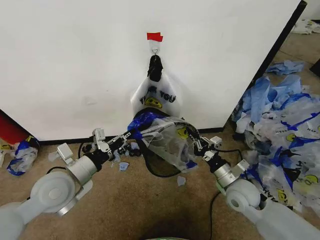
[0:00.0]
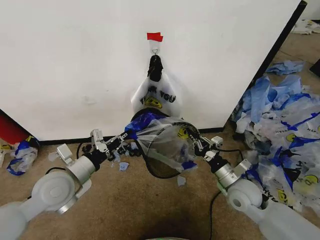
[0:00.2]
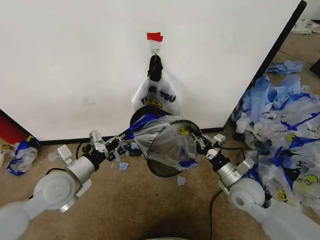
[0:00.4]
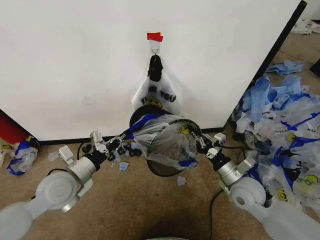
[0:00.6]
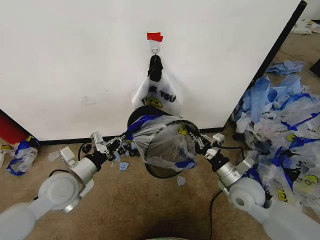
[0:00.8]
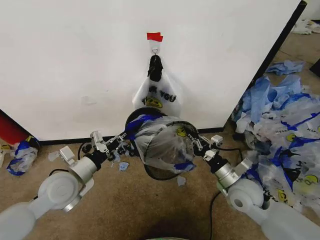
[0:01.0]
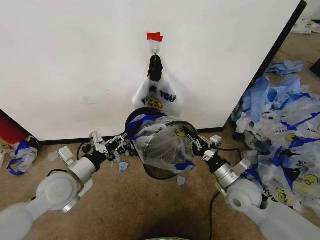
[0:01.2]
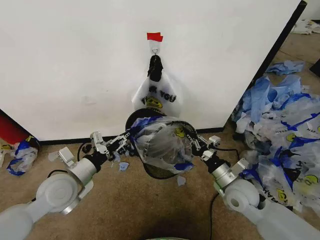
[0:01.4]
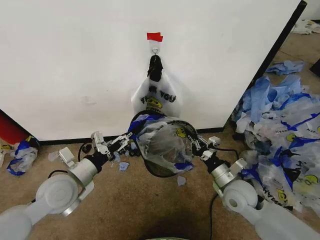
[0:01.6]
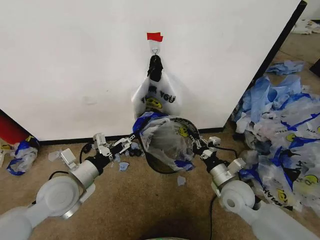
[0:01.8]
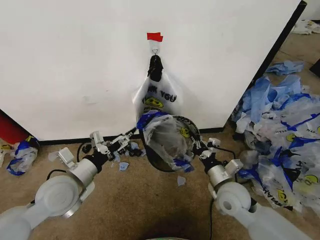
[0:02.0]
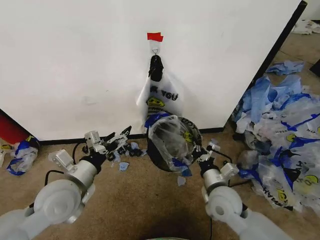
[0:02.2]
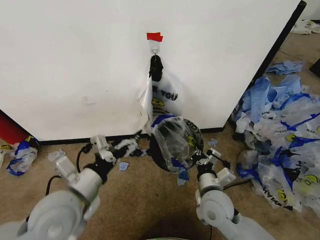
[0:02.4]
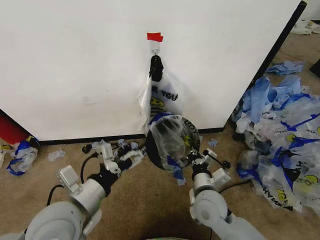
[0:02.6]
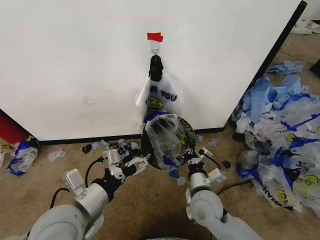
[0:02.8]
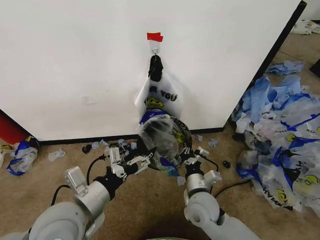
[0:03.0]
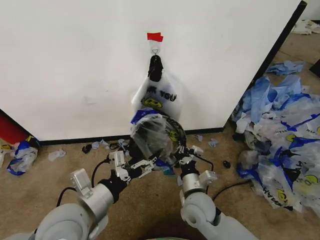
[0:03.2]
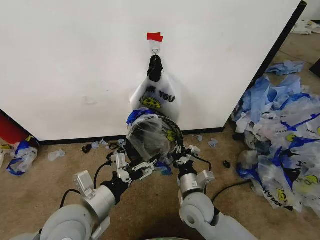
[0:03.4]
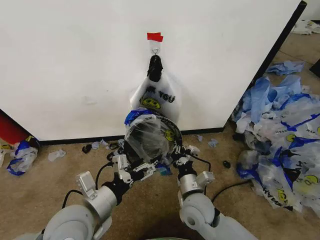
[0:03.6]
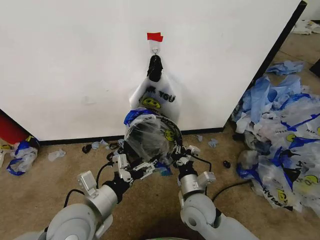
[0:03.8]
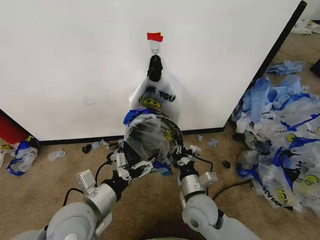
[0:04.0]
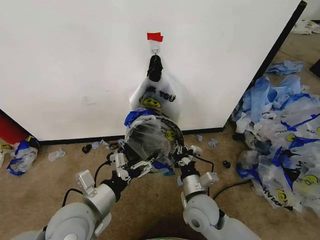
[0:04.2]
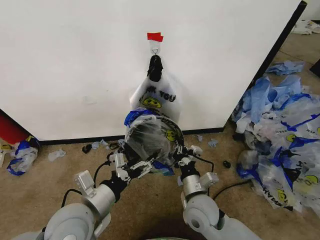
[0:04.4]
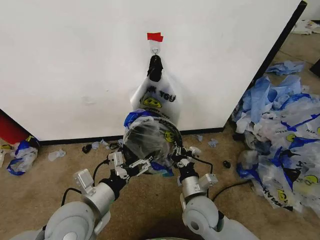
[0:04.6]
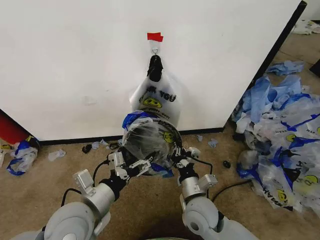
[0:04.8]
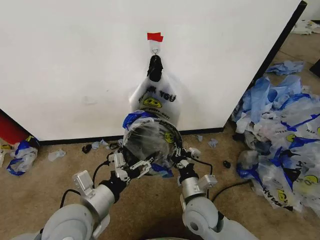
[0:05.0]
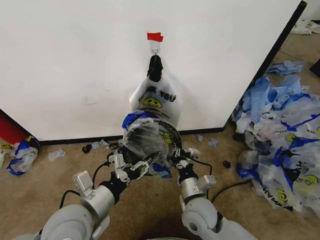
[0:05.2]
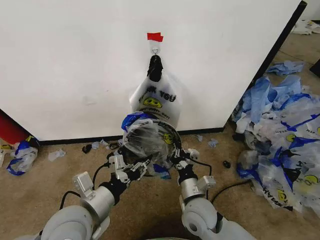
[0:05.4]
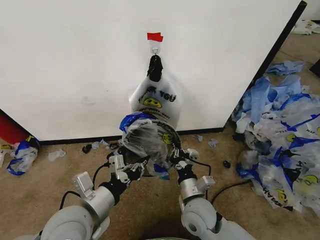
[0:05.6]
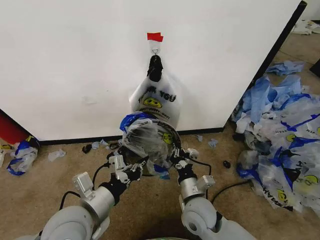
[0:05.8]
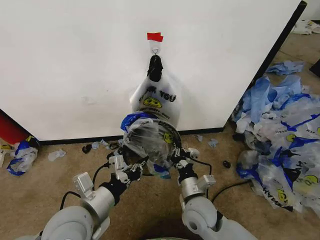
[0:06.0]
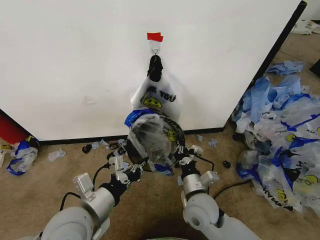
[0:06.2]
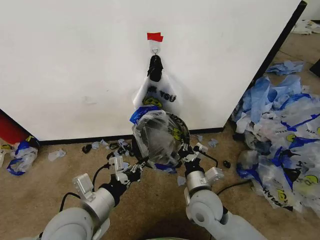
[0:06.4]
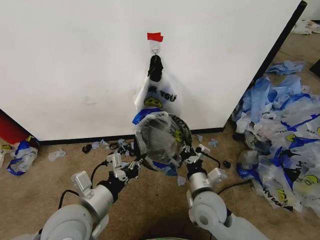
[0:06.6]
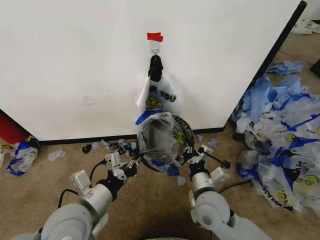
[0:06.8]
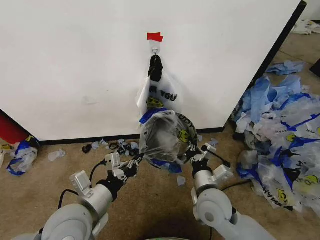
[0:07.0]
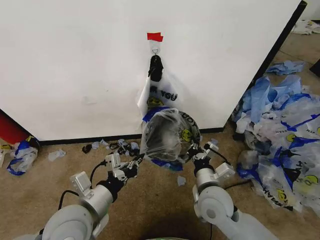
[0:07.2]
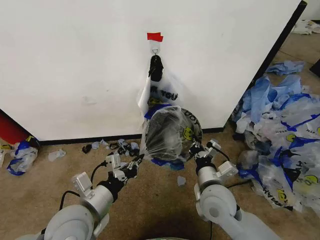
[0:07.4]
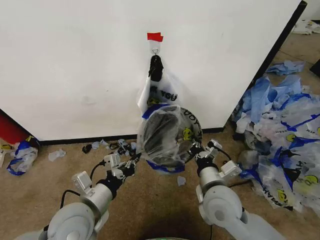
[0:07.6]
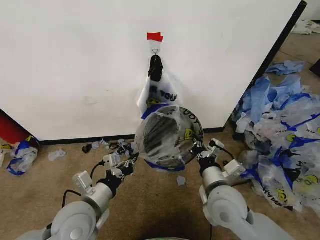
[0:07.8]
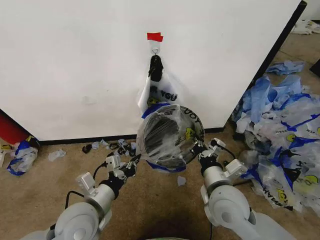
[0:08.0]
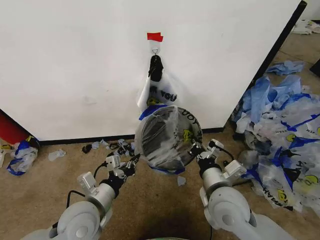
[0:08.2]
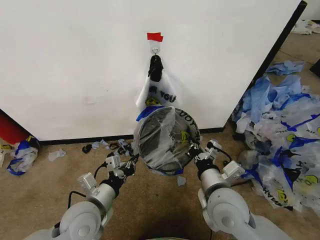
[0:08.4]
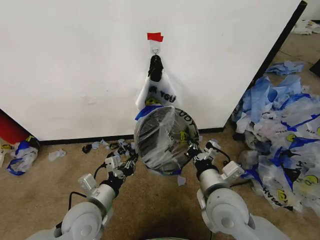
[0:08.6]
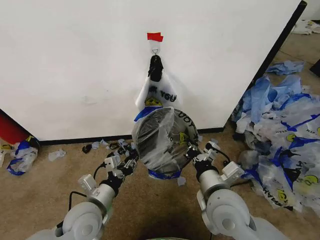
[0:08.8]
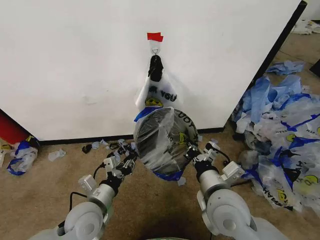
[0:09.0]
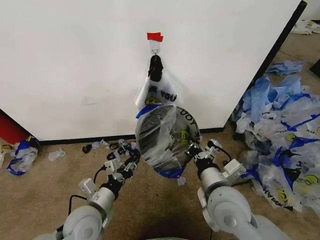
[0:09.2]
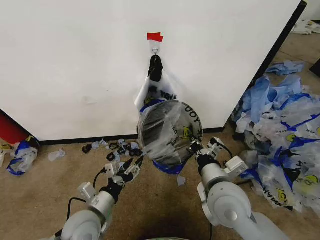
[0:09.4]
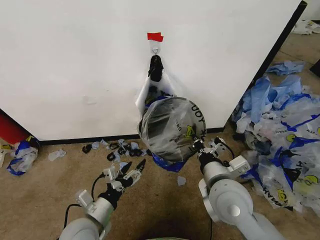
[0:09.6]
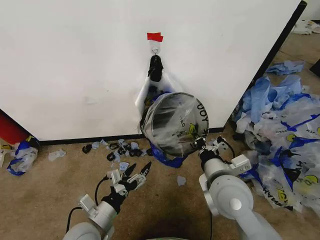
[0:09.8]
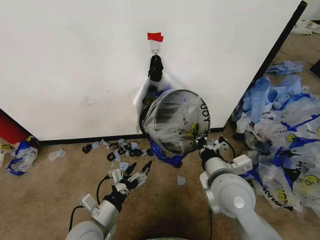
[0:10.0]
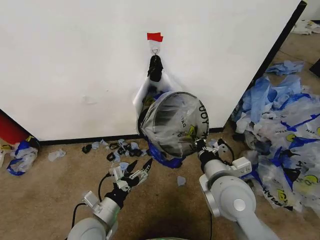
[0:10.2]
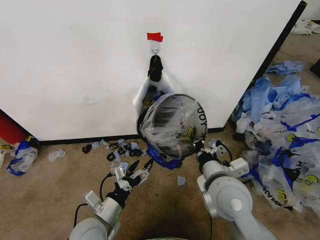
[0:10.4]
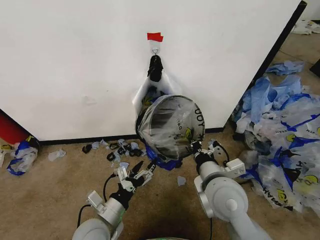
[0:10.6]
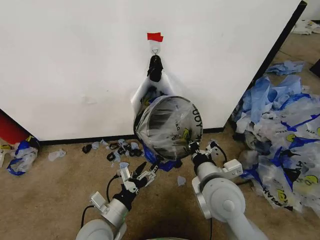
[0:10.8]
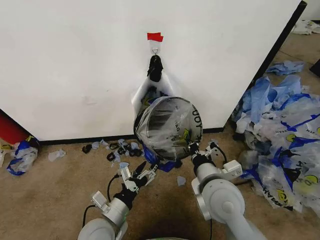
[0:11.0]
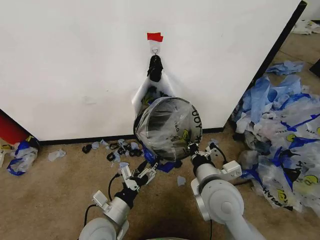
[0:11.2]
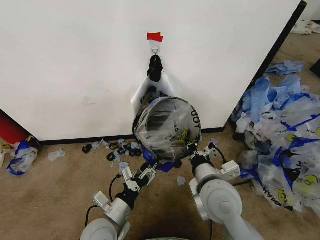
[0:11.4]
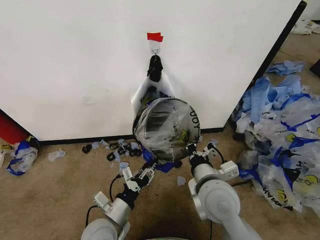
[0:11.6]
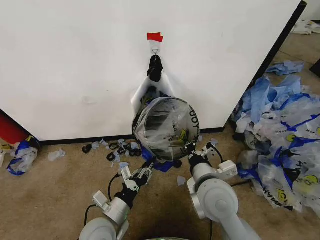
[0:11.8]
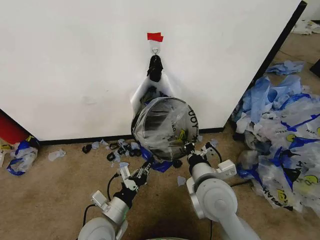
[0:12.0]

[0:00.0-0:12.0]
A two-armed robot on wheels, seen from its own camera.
Task of the whole recording: Pick up the garbage bag from the wall and place it over the trash bin.
0:00.0 to 0:01.6: The left gripper opens up.
0:01.6 to 0:03.0: The left gripper shifts approximately 10 cm backward and to the right; the right gripper travels to the left by about 10 cm.
0:03.0 to 0:04.4: The grippers make only small movements.
0:04.4 to 0:06.0: The left gripper closes its fingers.
0:06.0 to 0:07.6: The right gripper heads upward, covering some 10 cm.
0:07.6 to 0:09.0: The left gripper travels downward by some 5 cm.
0:09.0 to 0:10.4: The left gripper opens its fingers.
0:10.4 to 0:12.0: The left gripper closes its fingers.

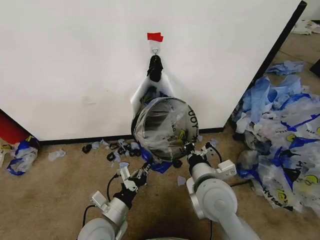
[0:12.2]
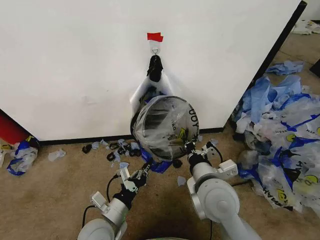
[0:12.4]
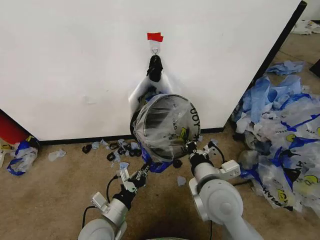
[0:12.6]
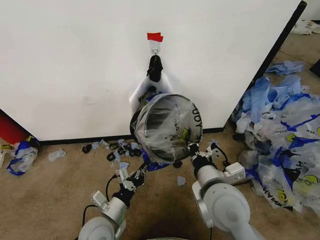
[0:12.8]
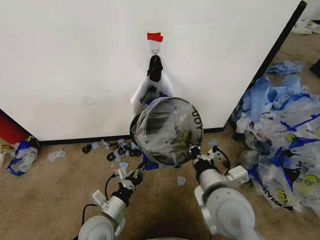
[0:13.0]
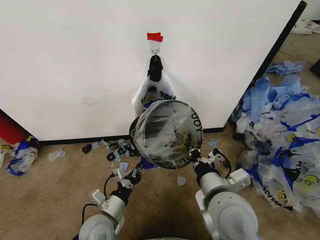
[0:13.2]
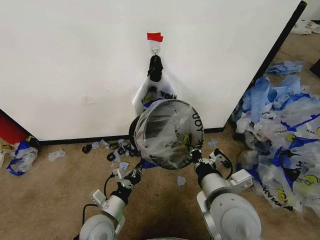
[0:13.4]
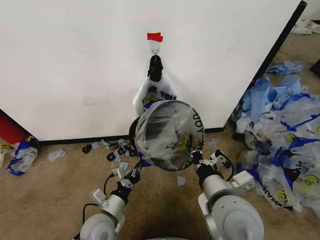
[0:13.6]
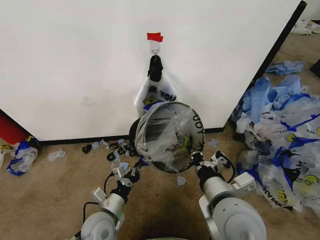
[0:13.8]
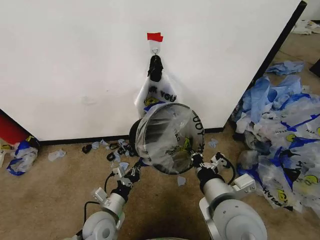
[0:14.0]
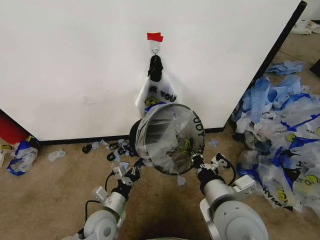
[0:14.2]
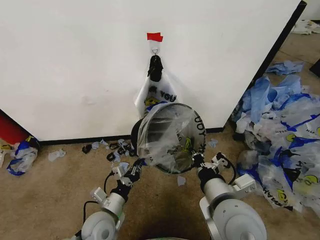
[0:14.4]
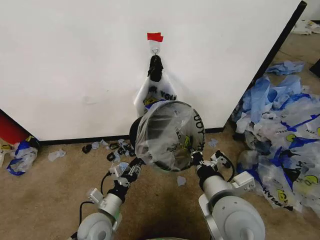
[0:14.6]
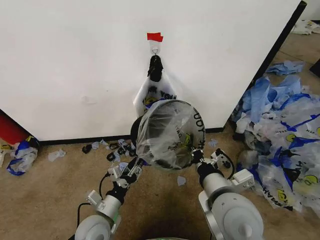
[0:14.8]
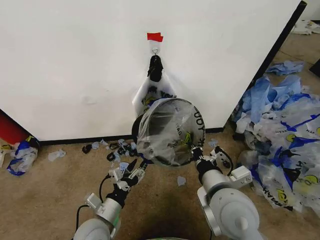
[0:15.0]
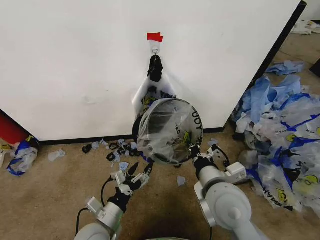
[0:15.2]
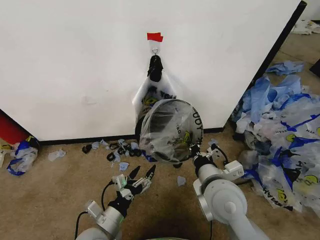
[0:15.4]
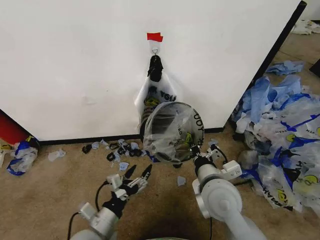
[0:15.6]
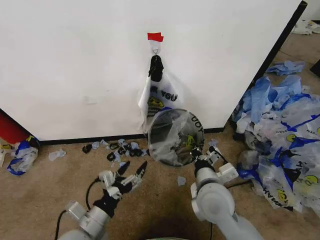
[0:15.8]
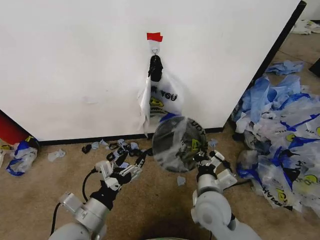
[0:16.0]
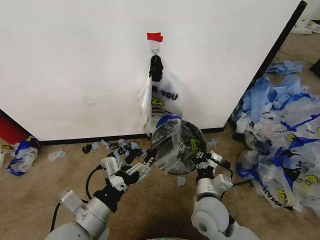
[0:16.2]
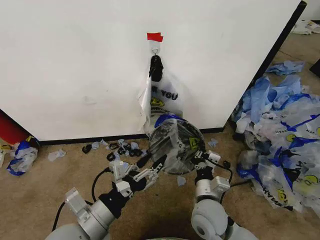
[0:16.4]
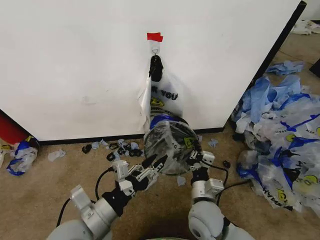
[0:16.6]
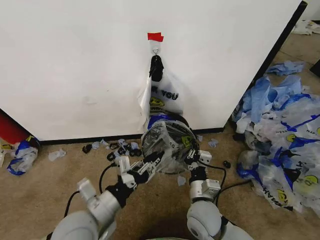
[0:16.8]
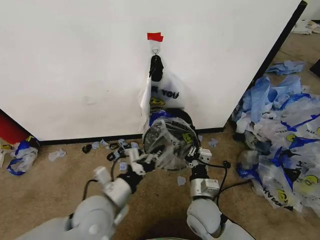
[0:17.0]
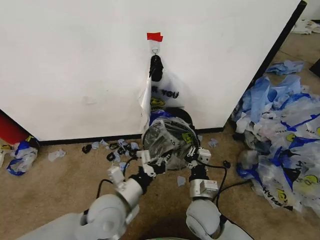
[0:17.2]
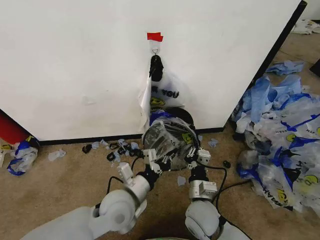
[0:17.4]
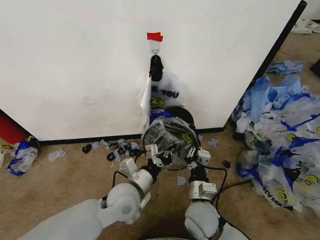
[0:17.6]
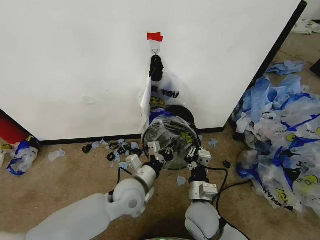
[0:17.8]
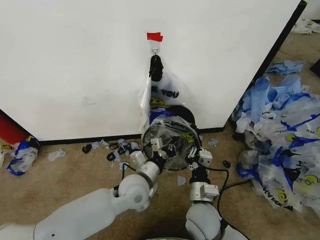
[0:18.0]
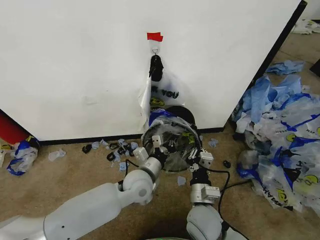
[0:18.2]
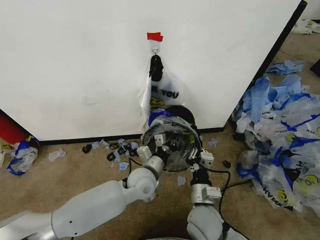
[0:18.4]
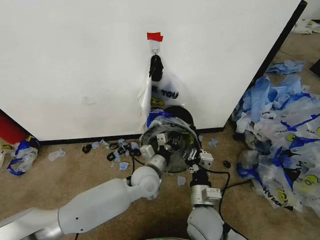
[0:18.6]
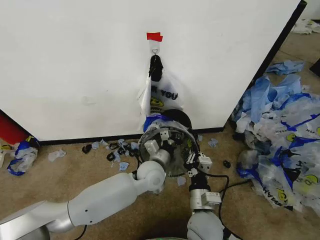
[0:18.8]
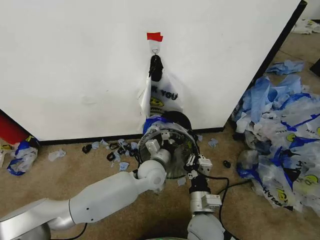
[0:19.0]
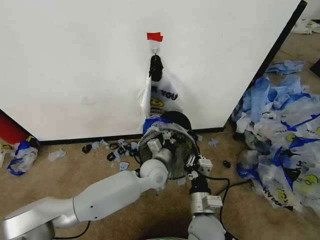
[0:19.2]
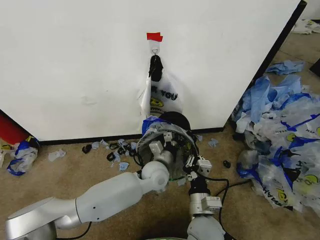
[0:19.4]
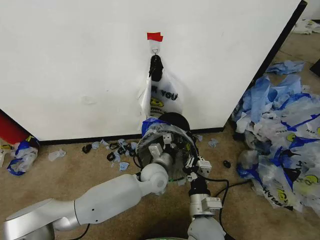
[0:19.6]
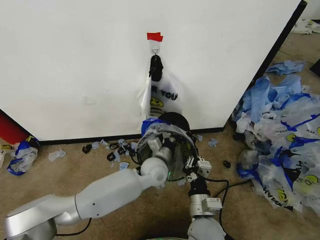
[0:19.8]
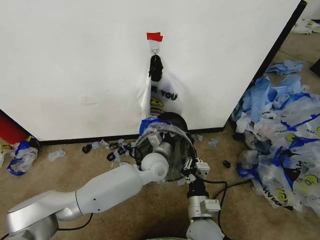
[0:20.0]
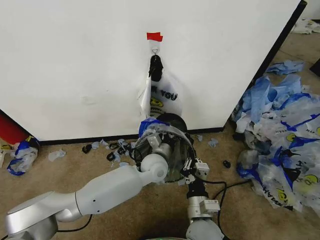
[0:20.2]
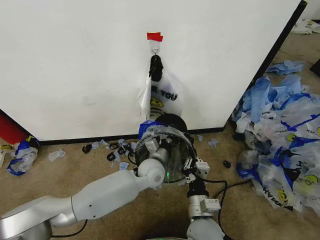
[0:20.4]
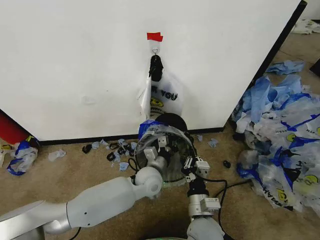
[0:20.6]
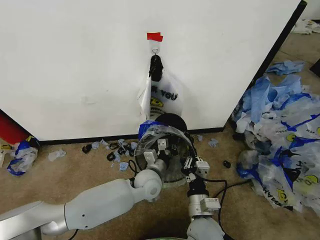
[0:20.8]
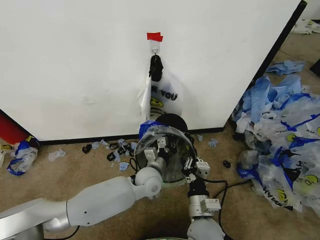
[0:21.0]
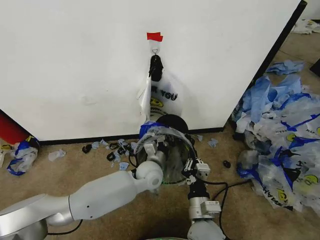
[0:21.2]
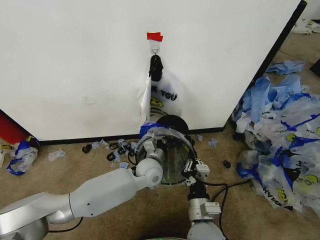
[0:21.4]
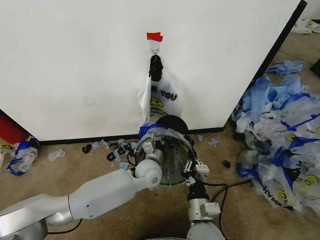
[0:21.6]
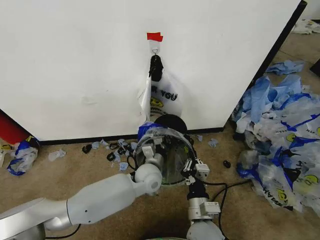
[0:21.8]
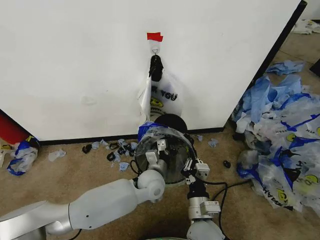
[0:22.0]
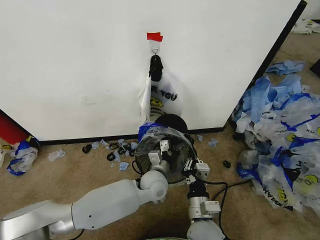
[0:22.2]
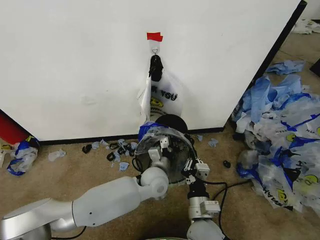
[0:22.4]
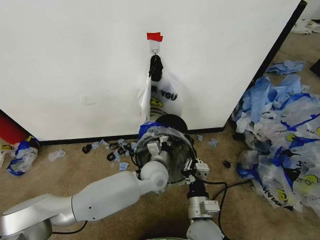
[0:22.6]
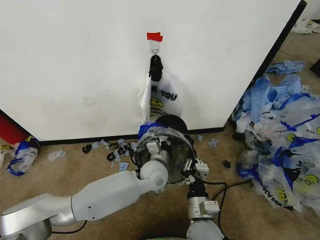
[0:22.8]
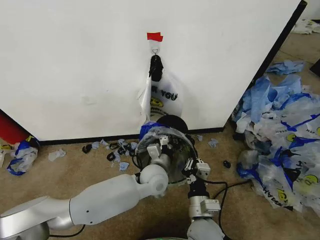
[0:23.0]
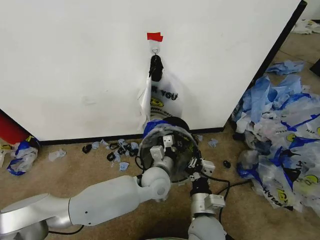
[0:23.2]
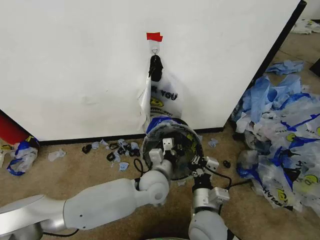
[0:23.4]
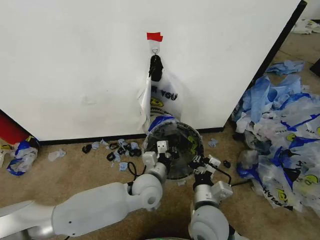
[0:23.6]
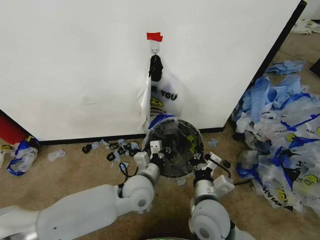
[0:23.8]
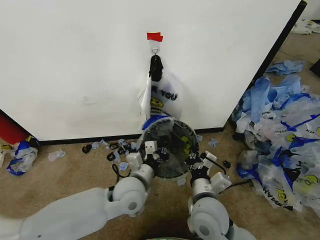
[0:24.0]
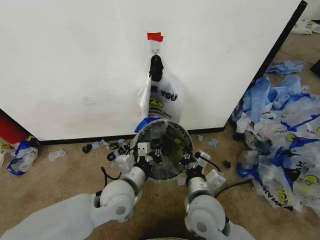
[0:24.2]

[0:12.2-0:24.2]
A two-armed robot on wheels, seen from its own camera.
Task of the whole recording: Pick up the garbage bag from the wall and place it over the trash bin.
0:12.2 to 0:13.8: The right gripper moves backward, approximately 5 cm; the left gripper moves some 5 cm.
0:13.8 to 0:15.2: The left gripper opens up.
0:15.2 to 0:16.6: The right gripper goes roughly 15 cm downward; the left gripper moves upward, about 10 cm, and closes up.
0:16.6 to 0:18.2: The left gripper goes roughly 20 cm forward, to the right and downward, and closes its fingers.
0:18.2 to 0:19.8: The left gripper is displaced forward and to the right by approximately 10 cm.
0:19.8 to 0:22.6: The grippers move only a little.
0:22.6 to 0:24.2: The left gripper shifts some 15 cm to the left and backward. The right gripper travels upward by some 5 cm.
